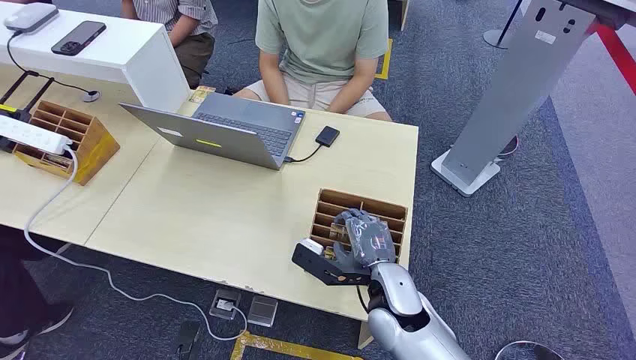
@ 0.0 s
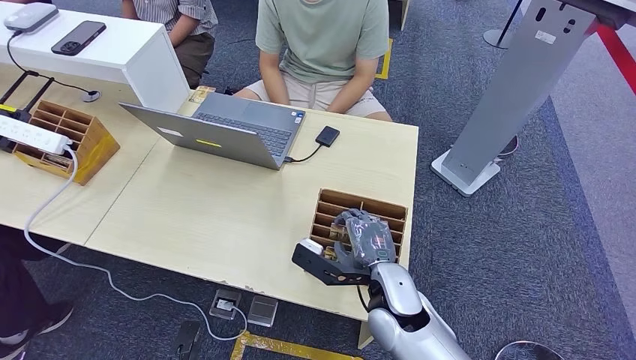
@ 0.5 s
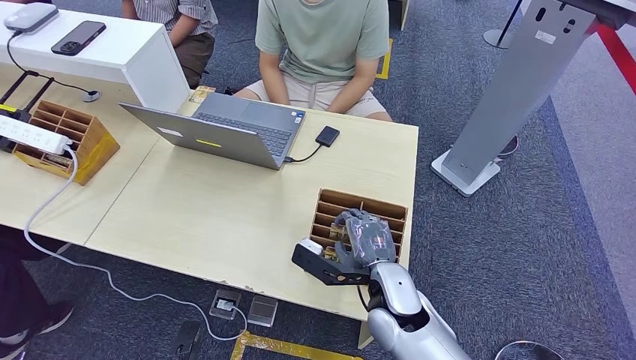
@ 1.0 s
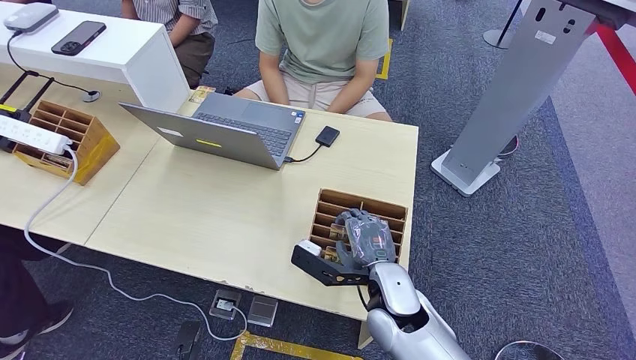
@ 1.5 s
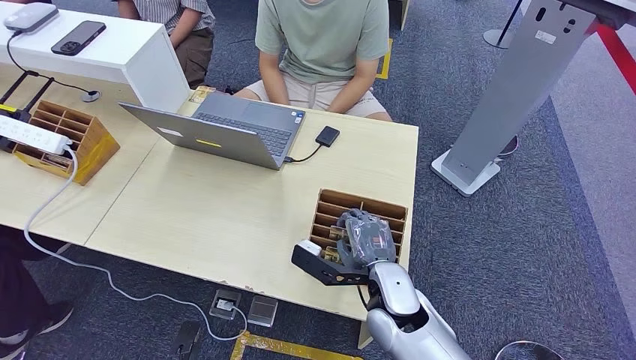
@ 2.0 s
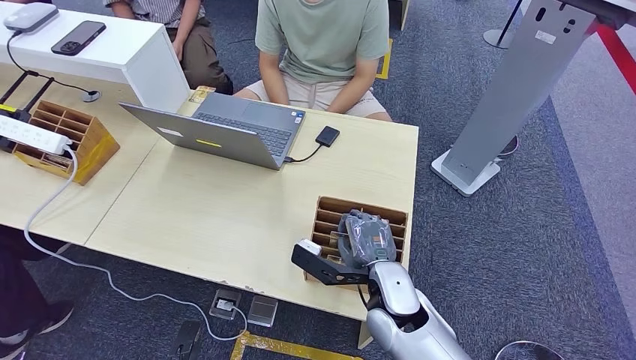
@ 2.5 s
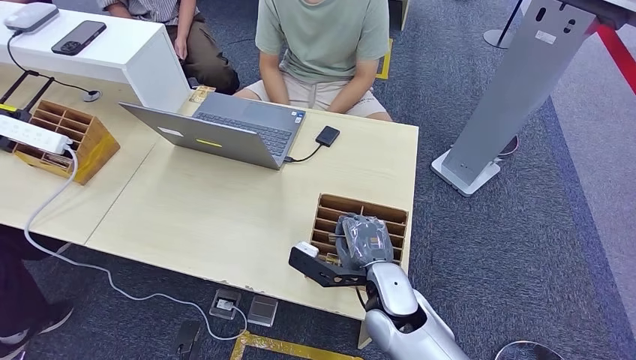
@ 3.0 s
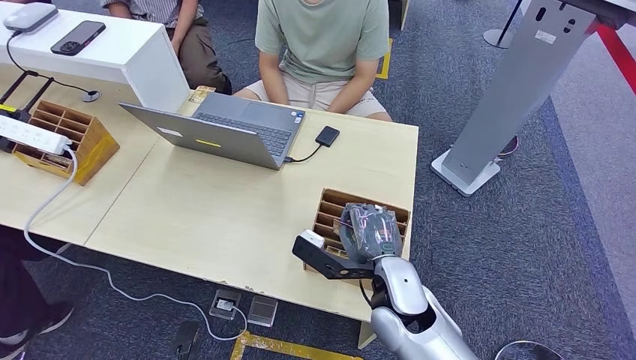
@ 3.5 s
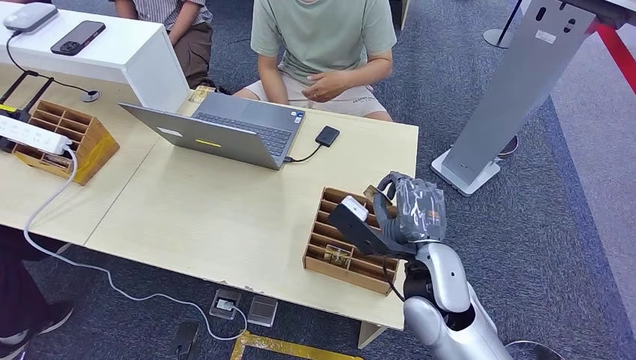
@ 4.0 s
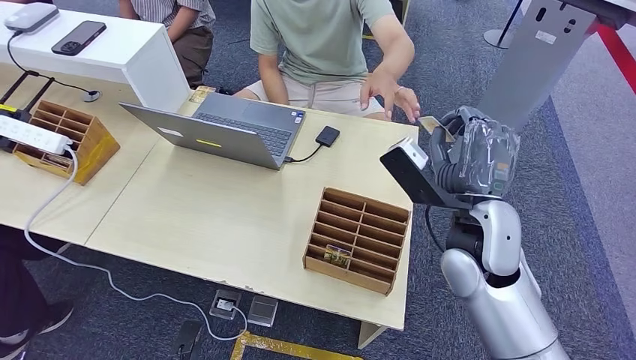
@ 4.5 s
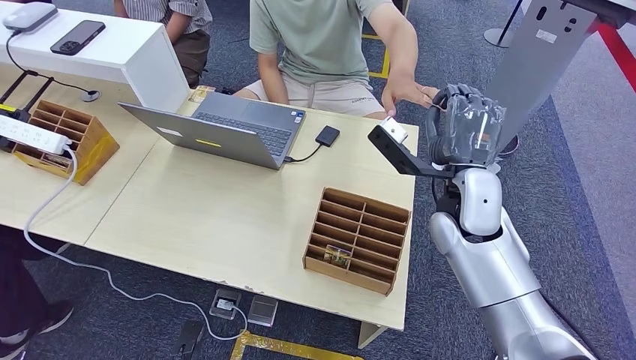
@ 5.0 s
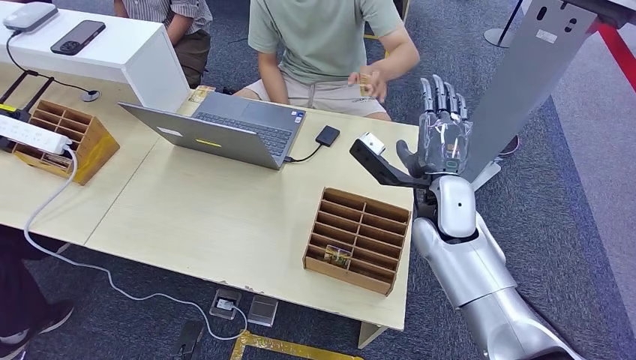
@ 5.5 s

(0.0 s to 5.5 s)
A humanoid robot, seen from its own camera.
Step, 0.0 s - 3.5 s: Pick up the room card from the card holder.
Step, 5.0 s - 5.5 s: Hand the room card to the target.
2.0 s - 3.5 s: The hands move only a little.
3.5 s - 5.5 s: The right hand heads forward, upward and to the right, covering approximately 15 cm.

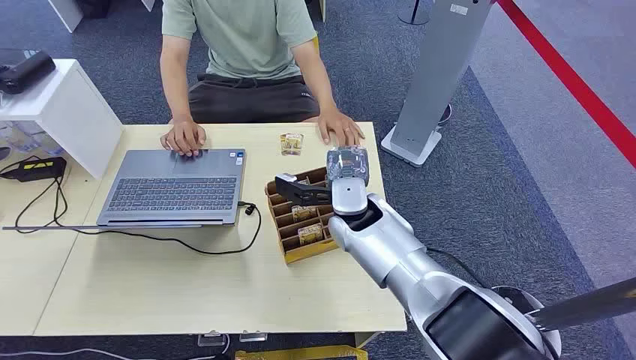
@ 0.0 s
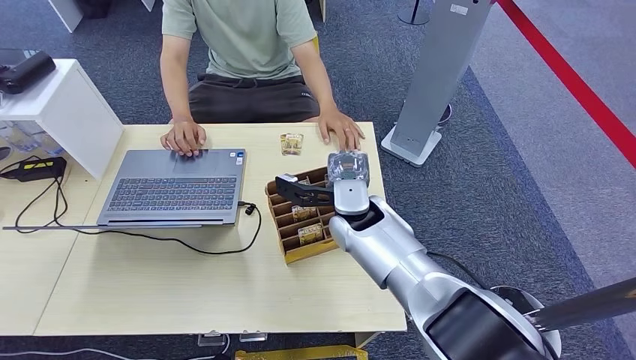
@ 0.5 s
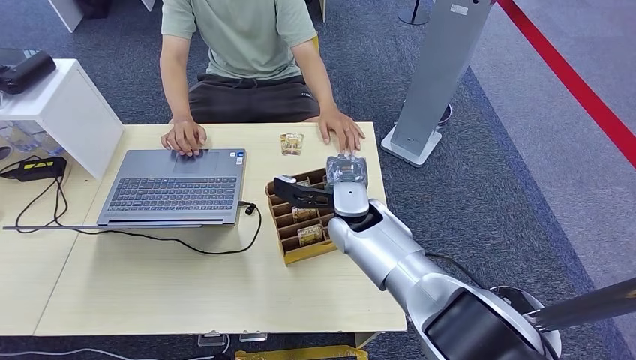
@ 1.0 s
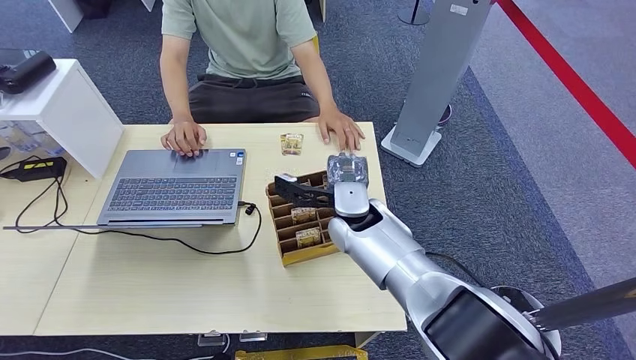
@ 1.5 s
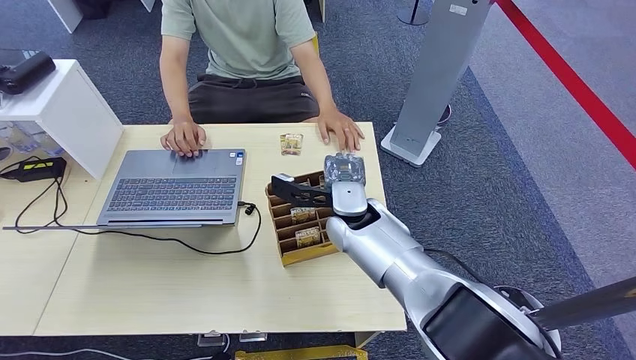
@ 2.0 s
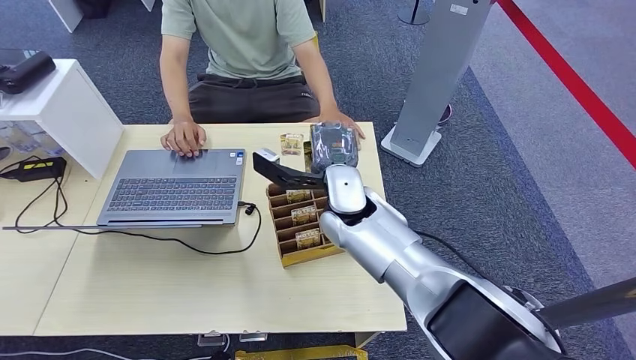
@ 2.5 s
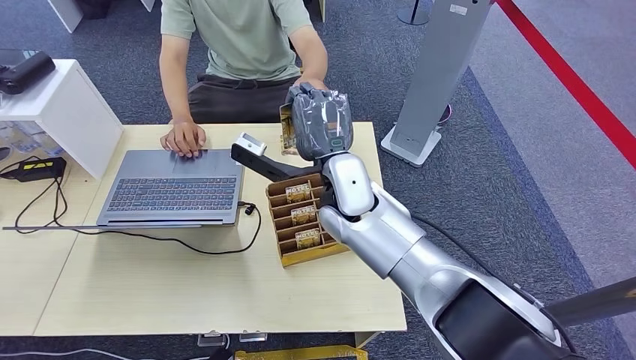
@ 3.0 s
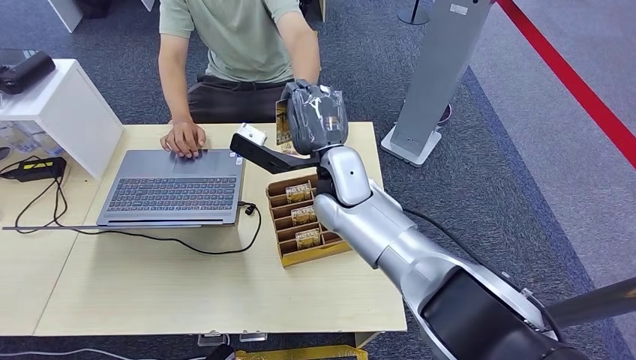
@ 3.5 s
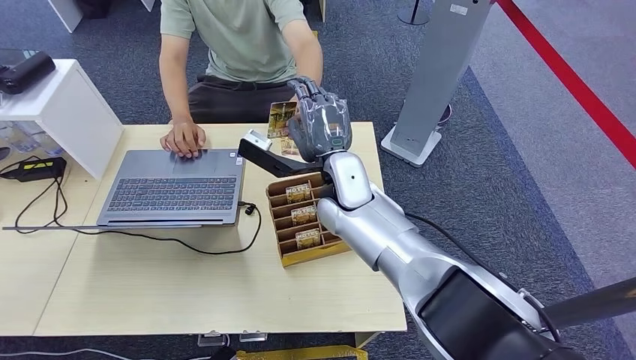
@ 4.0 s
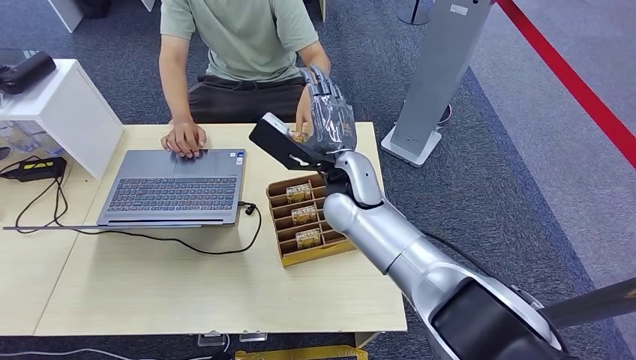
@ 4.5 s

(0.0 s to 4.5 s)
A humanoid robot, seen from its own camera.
Step, 0.0 s - 2.5 s: Pick up the room card from the card holder.
Step, 3.0 s - 4.5 s: Hand the room card to the target.
2.0 s - 4.5 s: The right hand goes some 5 cm upward.

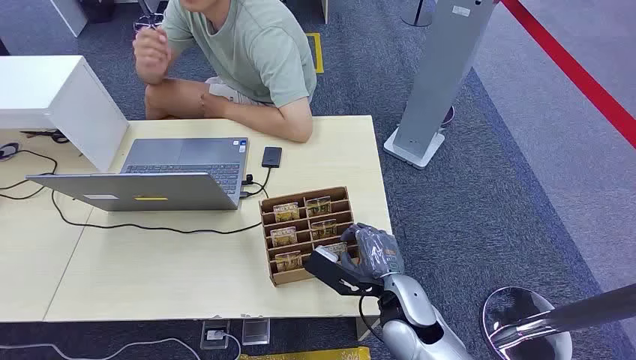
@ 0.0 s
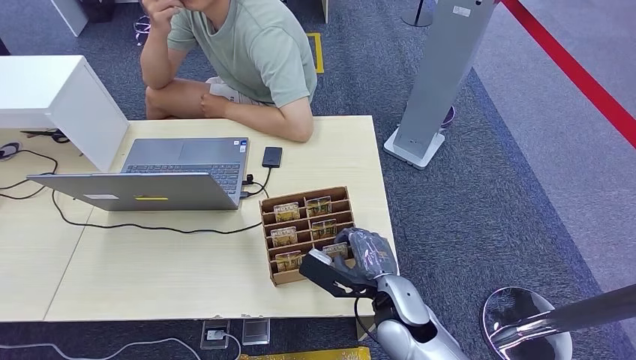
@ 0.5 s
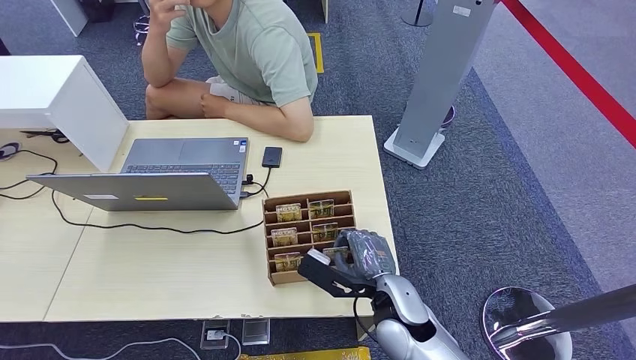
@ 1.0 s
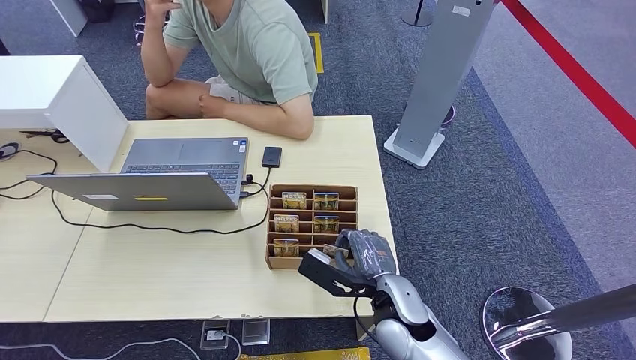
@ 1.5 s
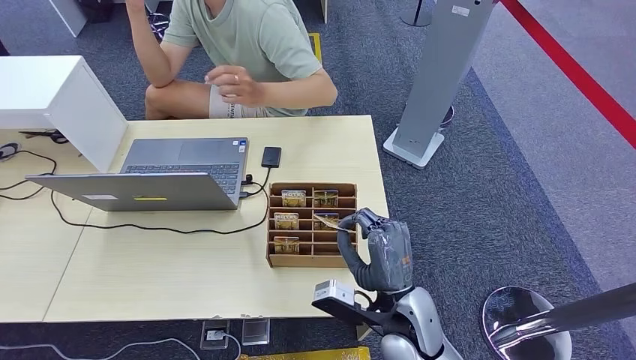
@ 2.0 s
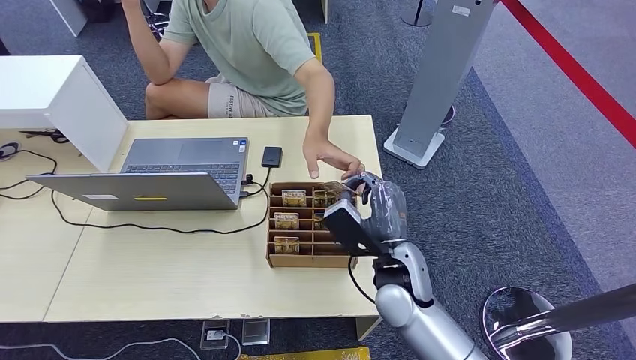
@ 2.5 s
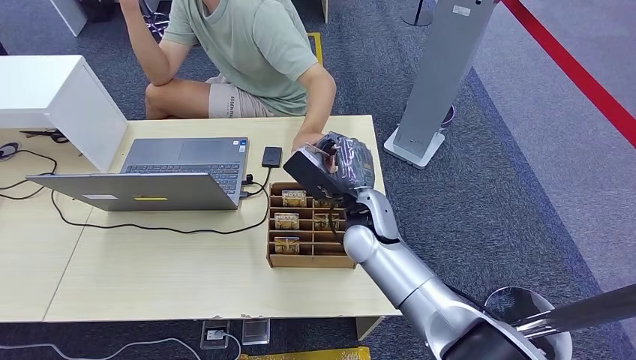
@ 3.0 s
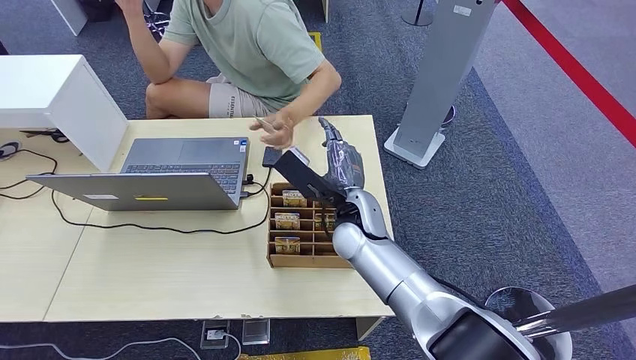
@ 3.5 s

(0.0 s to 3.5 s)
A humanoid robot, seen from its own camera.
Step, 0.0 s - 2.0 s: Pick up the room card from the card holder.
Step, 3.0 s - 3.5 s: Hand the room card to the target.
2.0 s - 3.5 s: The right hand shifts some 15 cm forward.
